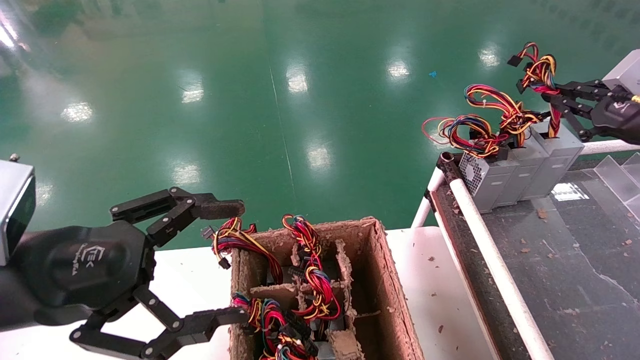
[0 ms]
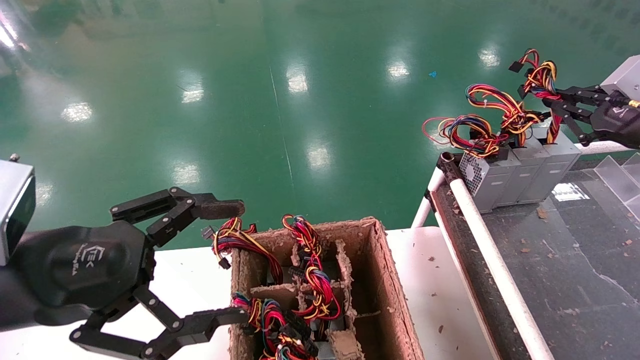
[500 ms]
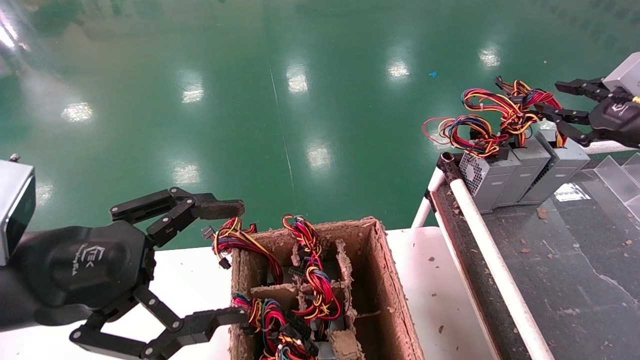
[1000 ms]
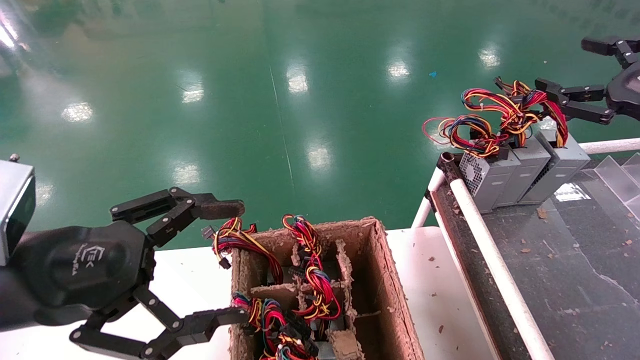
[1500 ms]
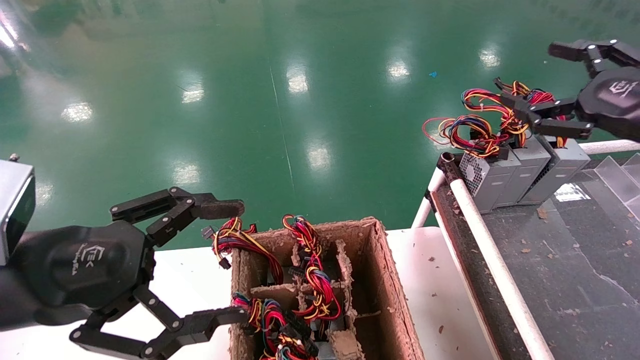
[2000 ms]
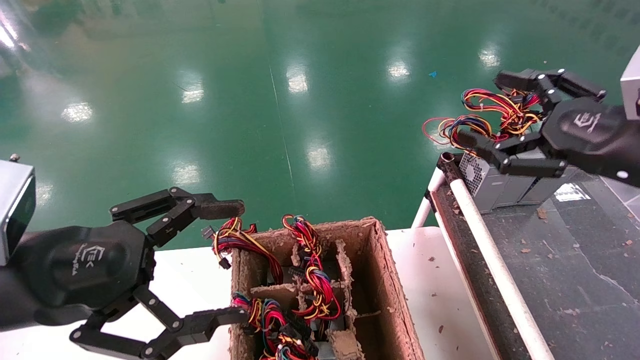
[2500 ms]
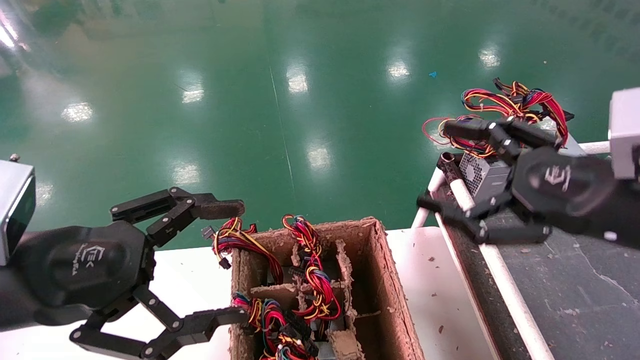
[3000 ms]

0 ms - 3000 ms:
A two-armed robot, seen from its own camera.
0 ms - 1500 ms: The right gripper opens up.
1500 ms - 3000 ms: The right gripper is displaced to the left, backward and downward by about 20 cm, and opens.
